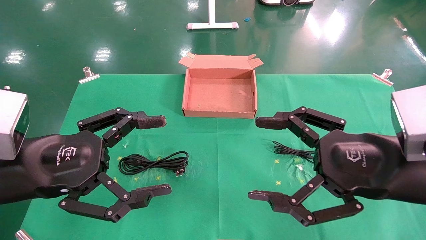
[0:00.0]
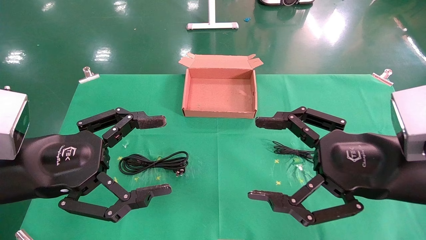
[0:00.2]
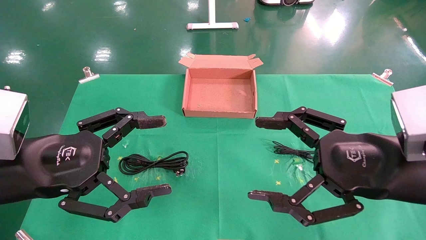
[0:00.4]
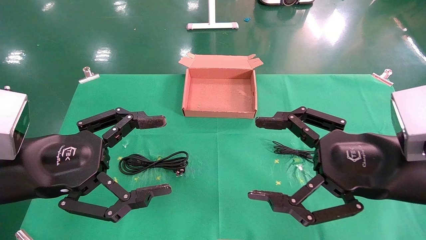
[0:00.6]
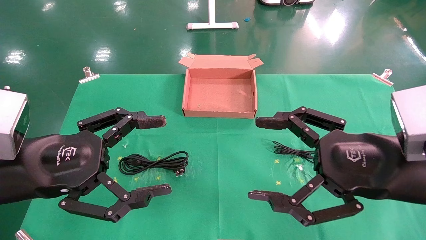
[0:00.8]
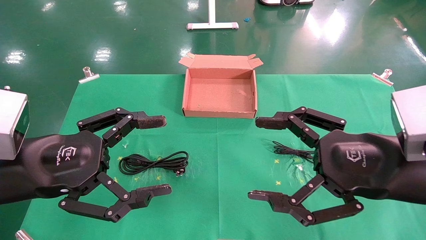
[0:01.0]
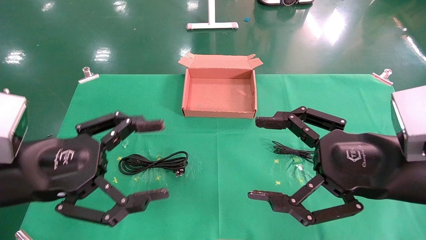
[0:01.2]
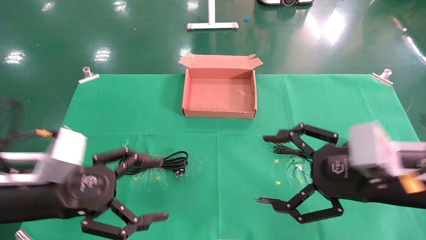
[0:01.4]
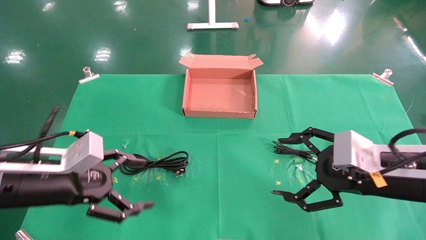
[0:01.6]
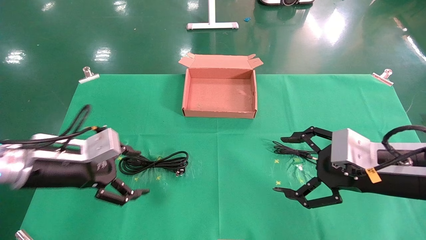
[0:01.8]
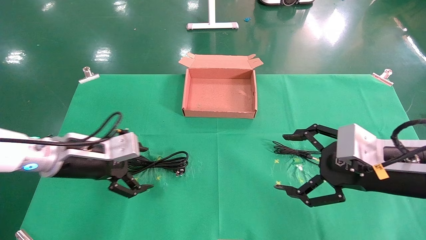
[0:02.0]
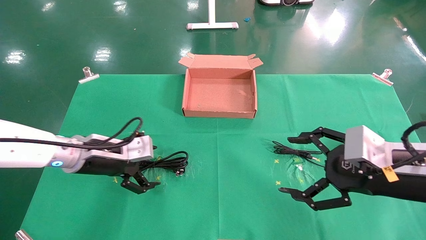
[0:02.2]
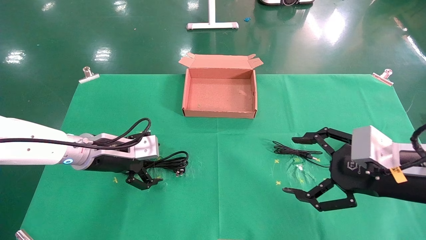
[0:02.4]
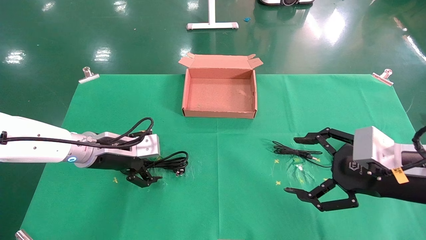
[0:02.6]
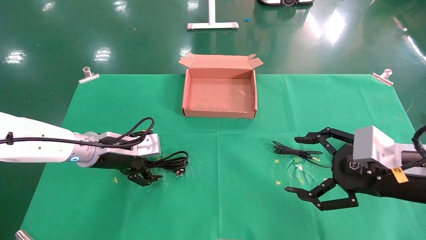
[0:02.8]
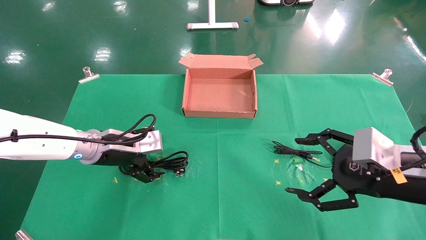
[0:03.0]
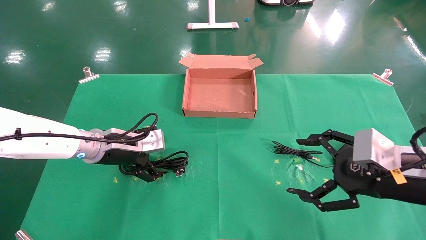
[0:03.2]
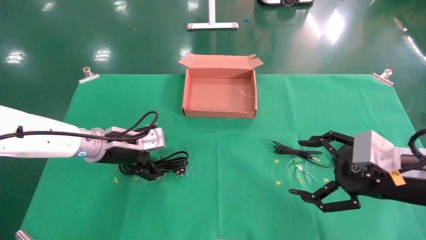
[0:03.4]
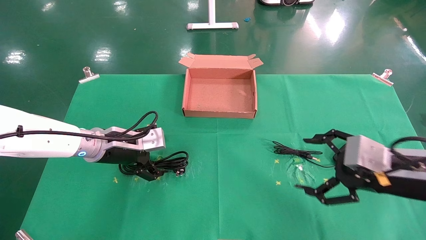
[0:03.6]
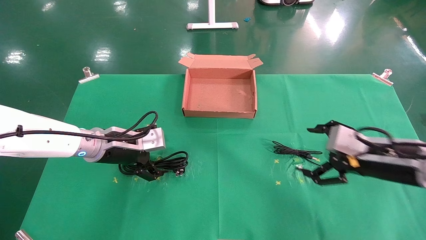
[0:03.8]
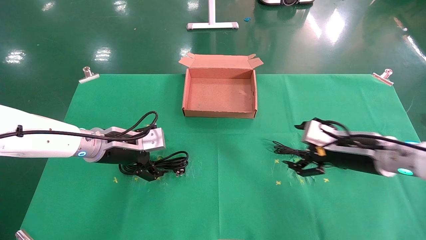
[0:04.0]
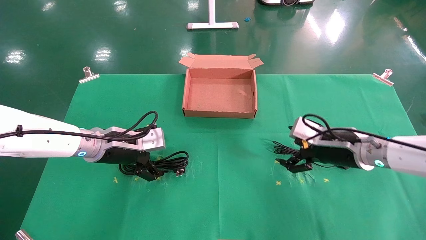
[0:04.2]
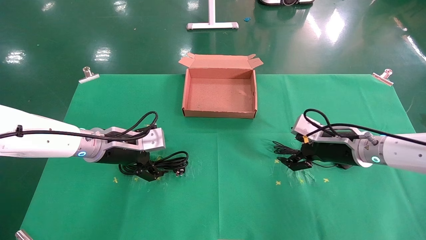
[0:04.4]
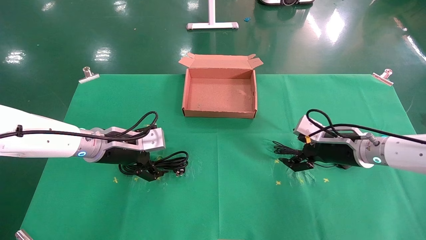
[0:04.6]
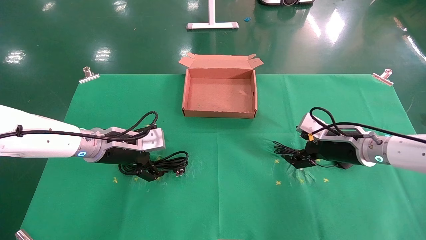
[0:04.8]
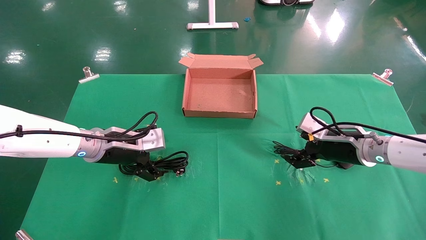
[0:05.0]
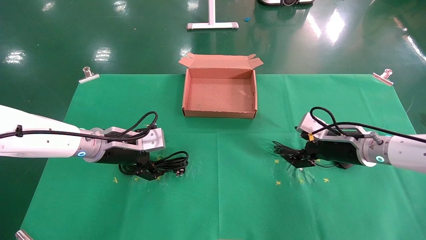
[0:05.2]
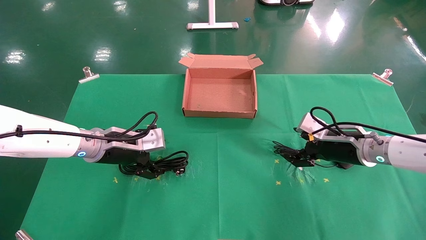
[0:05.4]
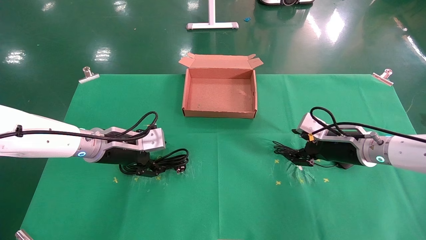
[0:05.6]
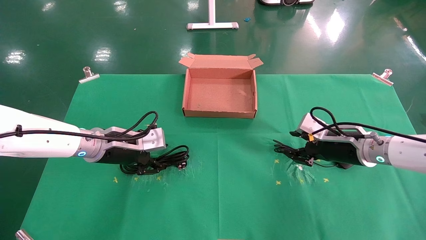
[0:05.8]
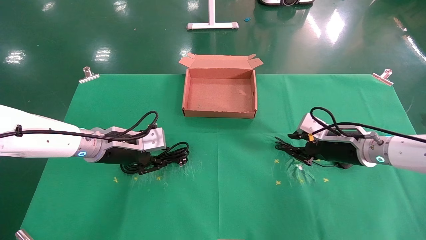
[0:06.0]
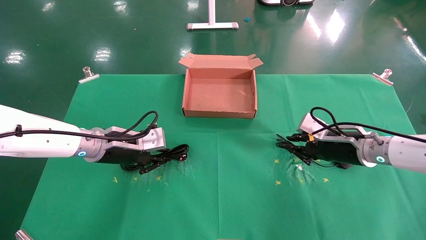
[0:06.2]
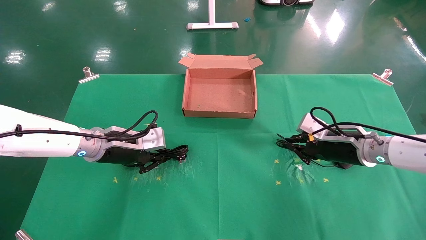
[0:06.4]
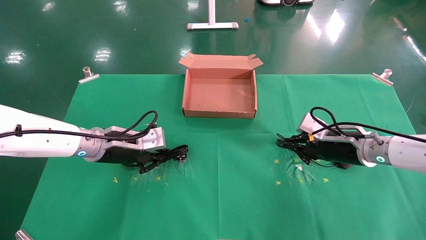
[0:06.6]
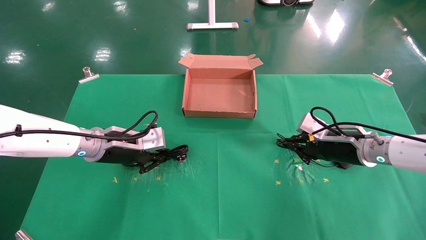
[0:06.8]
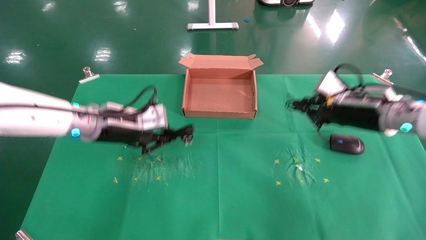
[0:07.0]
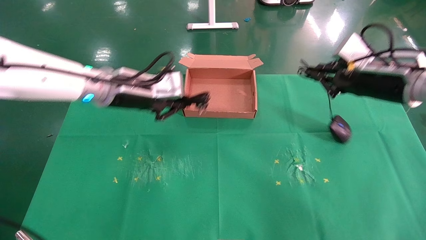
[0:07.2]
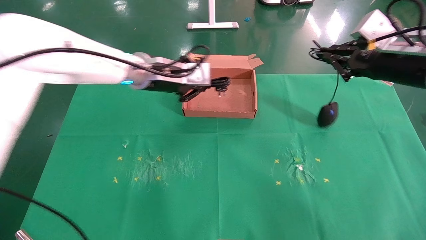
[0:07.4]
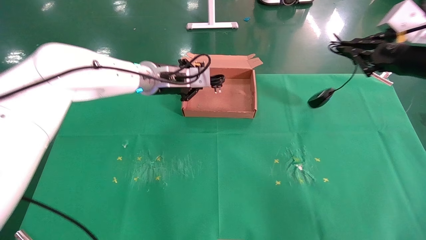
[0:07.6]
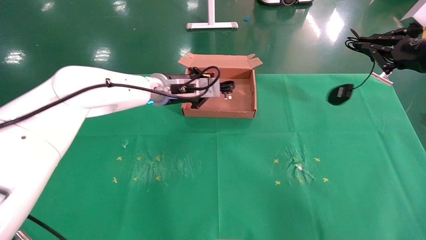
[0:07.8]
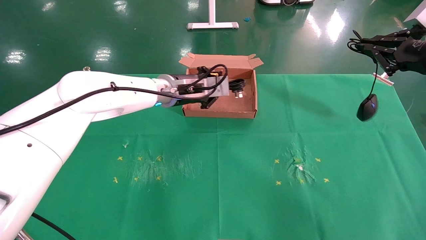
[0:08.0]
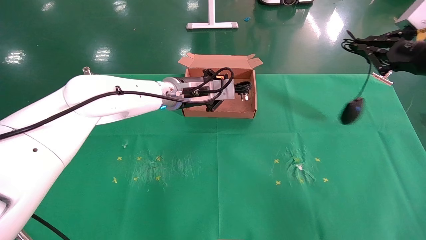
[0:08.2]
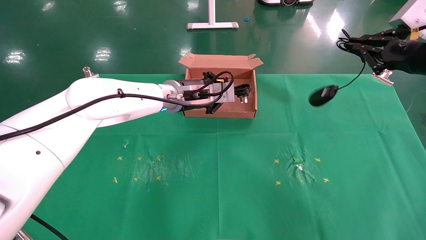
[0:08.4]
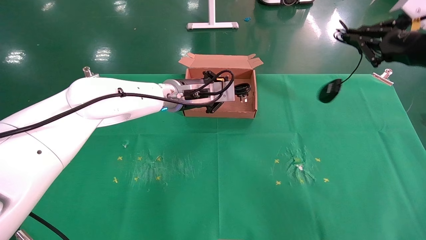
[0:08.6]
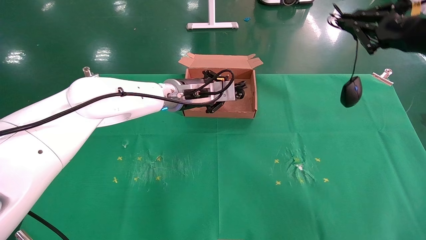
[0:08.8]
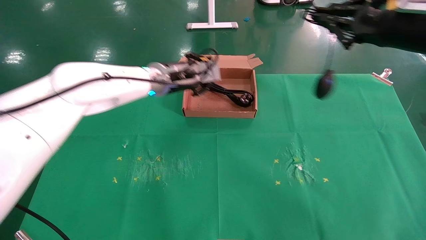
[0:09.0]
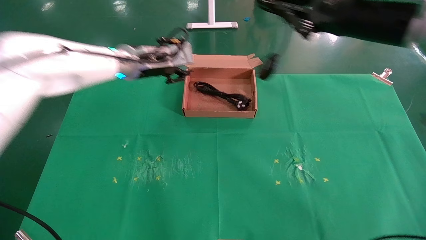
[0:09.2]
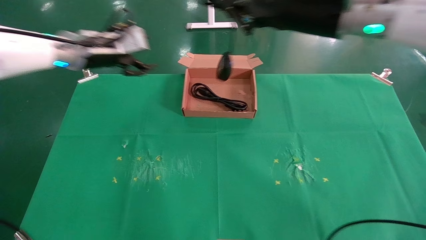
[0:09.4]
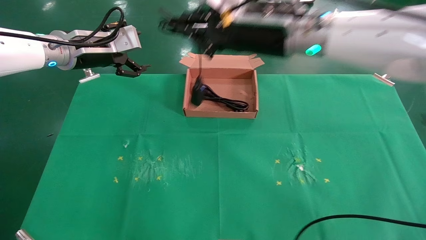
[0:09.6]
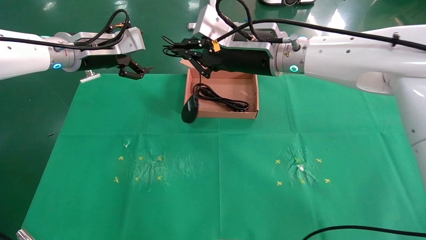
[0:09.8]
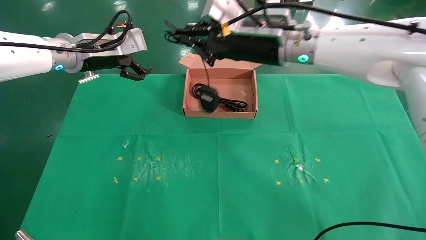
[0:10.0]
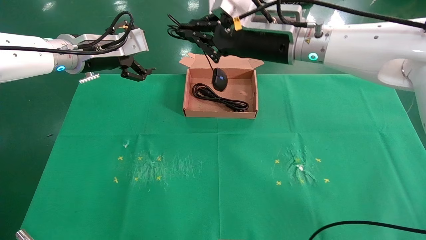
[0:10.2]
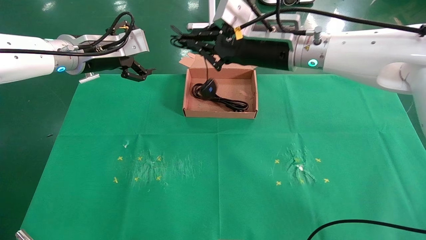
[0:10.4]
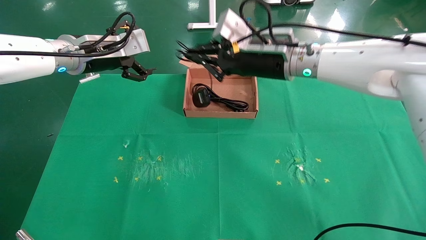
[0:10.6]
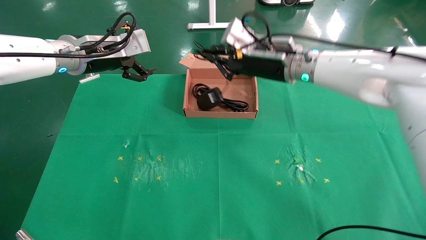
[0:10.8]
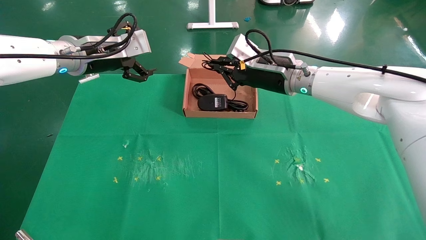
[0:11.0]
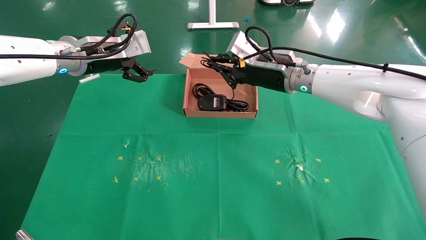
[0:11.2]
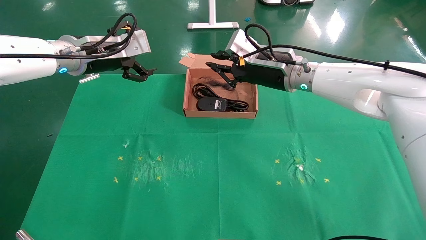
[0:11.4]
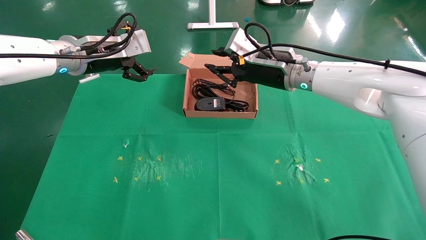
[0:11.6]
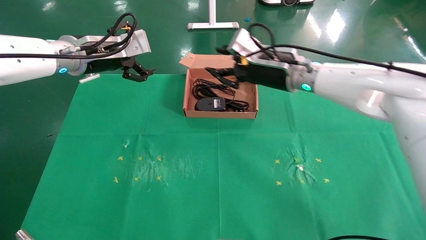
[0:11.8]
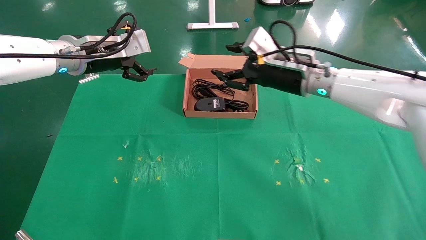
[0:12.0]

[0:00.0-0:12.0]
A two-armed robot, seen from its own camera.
Task of the whole recording: grasp data cable left put into box grasp mouse right put into box.
Step, 0:01.2 to 0:06.6: Simultaneously pick up the mouse and power cord from the accessory packaging area.
Step, 0:06.8 to 0:11.4: Place the mouse and power cord into the box.
0:00.0 to 0:01.6: The right gripper ends up some 5 cm from where it was. Meanwhile the left gripper is displaced forward and downward by approximately 10 cm.
0:01.6 to 0:03.0: The left gripper goes roughly 15 cm forward and to the right.
0:03.0 to 0:04.4: The right gripper shifts about 15 cm forward.
0:04.4 to 0:06.0: The right gripper closes its fingers; the left gripper closes up.
0:06.0 to 0:07.6: The left gripper moves to the right, upward and forward, some 20 cm, and closes up. The right gripper travels upward and to the right by approximately 20 cm, and closes up.
0:07.6 to 0:09.0: The right gripper moves to the left and upward, approximately 10 cm.
0:09.0 to 0:10.4: The right gripper moves to the left and forward, approximately 20 cm, while the left gripper shifts approximately 15 cm to the left and upward, and opens.
0:10.4 to 0:12.0: The right gripper heads downward, covering roughly 5 cm, and opens up.

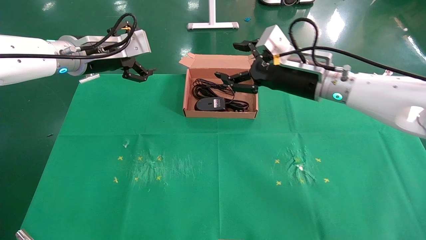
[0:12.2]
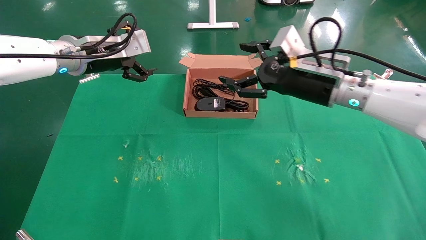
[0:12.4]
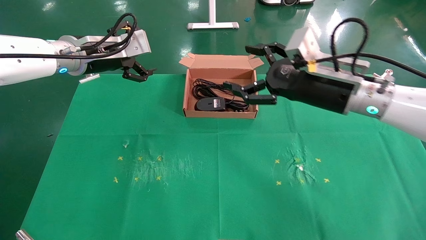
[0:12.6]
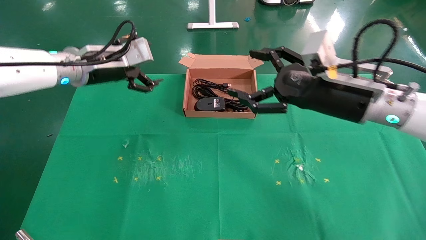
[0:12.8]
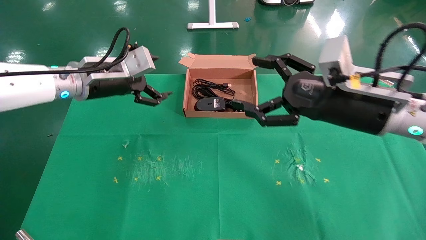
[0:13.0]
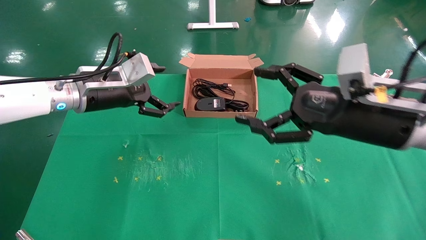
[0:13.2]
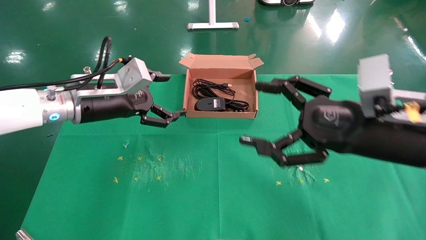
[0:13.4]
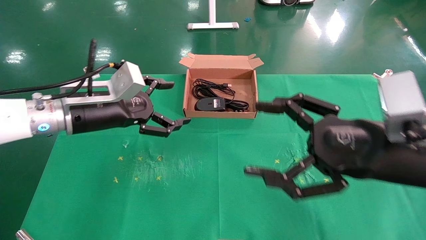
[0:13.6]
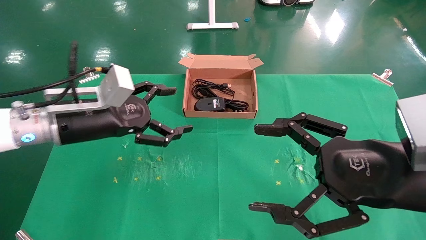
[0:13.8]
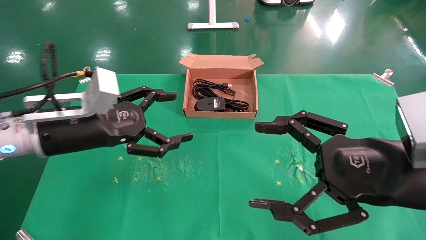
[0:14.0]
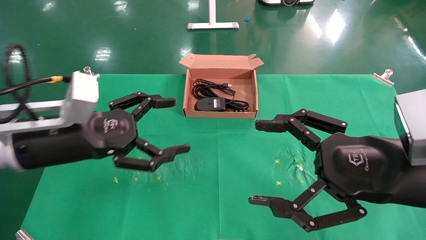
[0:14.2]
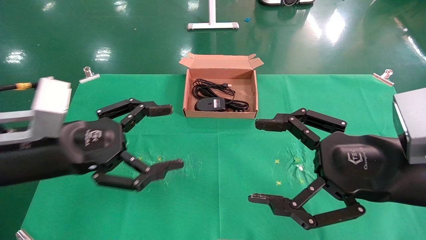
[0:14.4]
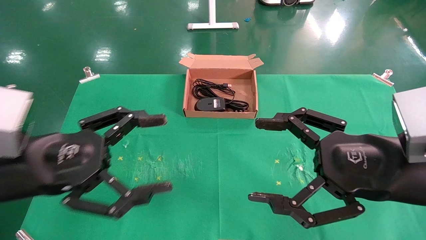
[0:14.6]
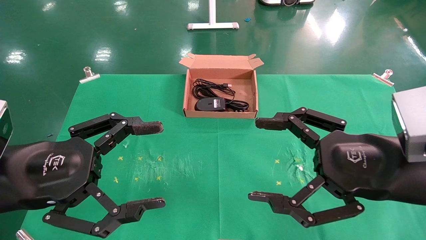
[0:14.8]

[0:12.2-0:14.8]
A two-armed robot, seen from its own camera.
Task of the whole recording: grasp data cable left put into box grasp mouse right put into box.
0:12.2 to 0:13.4: The right gripper shifts approximately 15 cm backward. The left gripper goes some 10 cm downward and backward.
0:13.4 to 0:14.8: The right gripper is displaced backward by roughly 5 cm, while the left gripper is displaced backward by some 20 cm.
